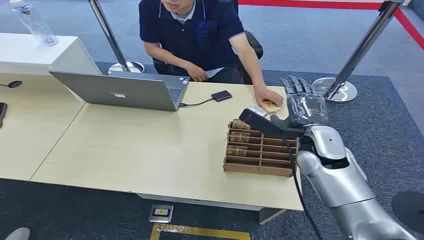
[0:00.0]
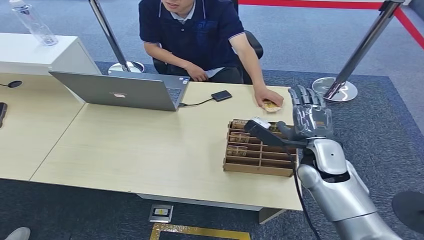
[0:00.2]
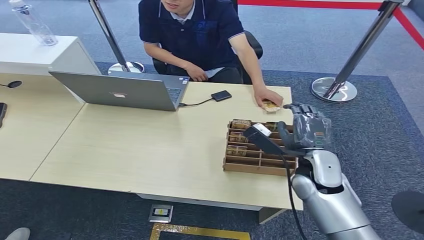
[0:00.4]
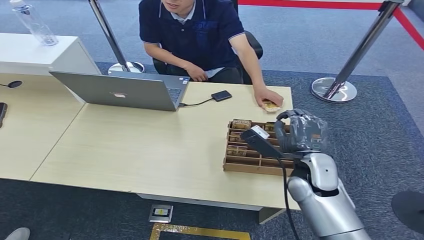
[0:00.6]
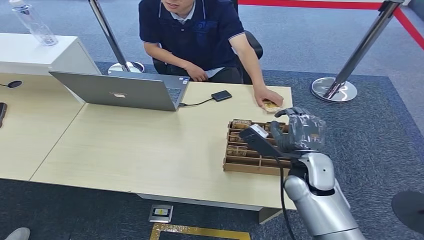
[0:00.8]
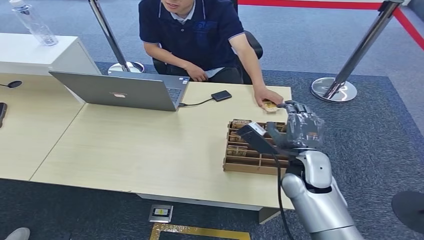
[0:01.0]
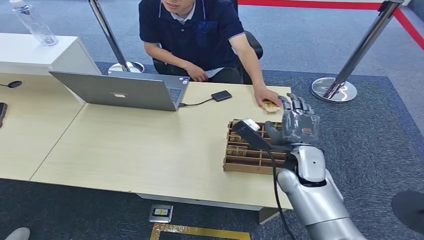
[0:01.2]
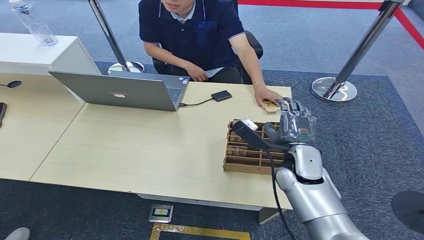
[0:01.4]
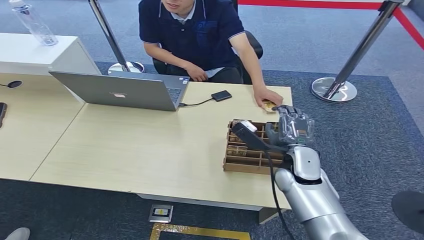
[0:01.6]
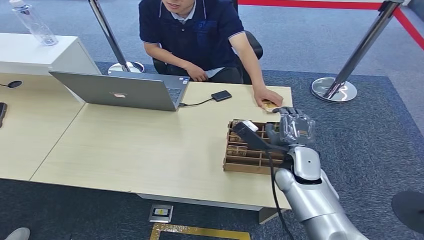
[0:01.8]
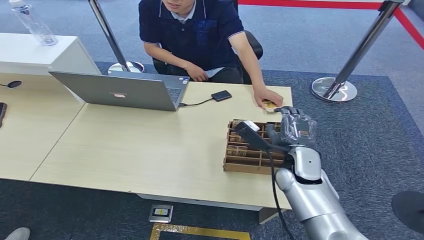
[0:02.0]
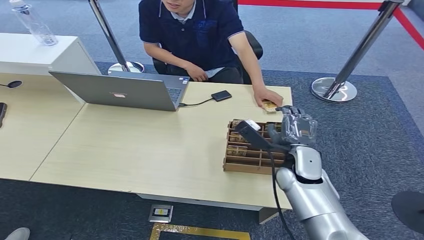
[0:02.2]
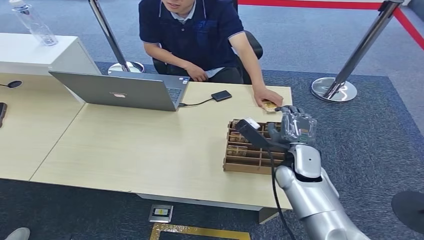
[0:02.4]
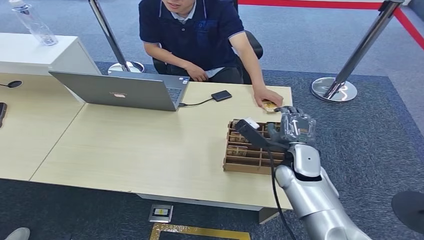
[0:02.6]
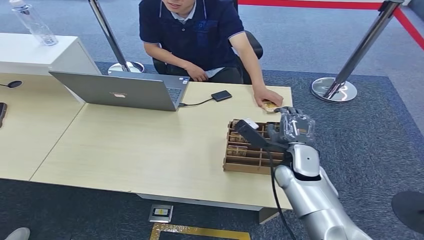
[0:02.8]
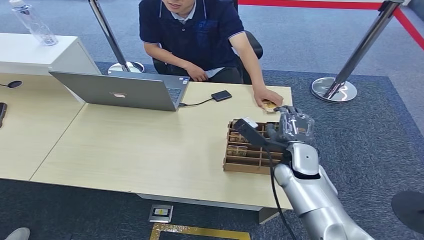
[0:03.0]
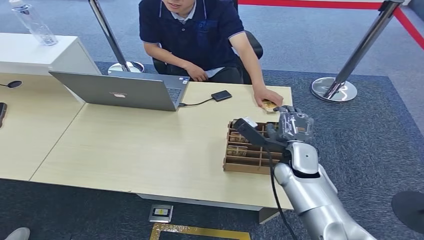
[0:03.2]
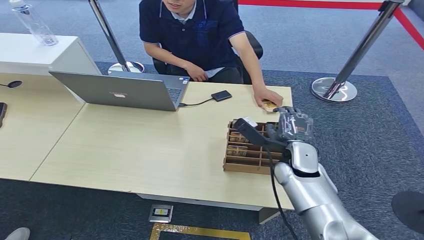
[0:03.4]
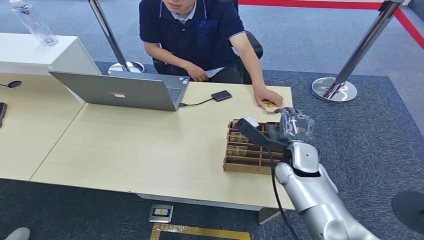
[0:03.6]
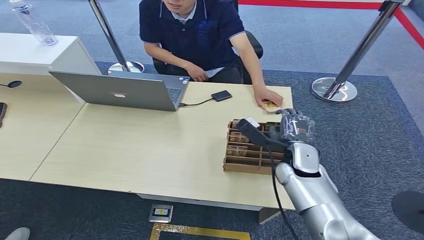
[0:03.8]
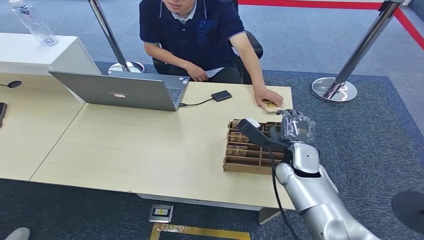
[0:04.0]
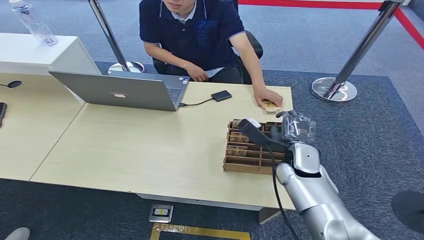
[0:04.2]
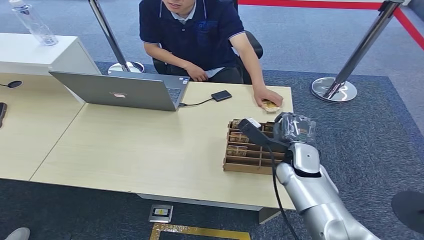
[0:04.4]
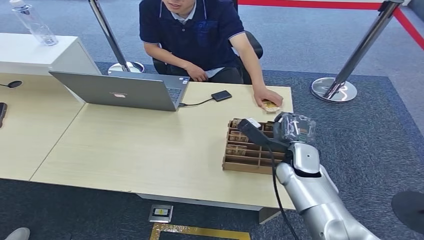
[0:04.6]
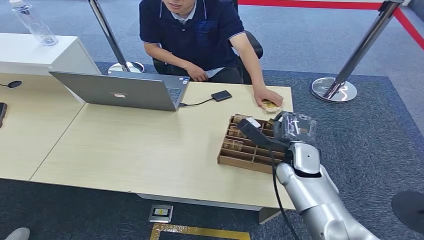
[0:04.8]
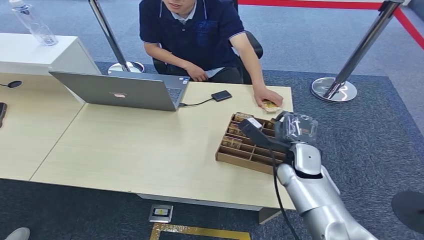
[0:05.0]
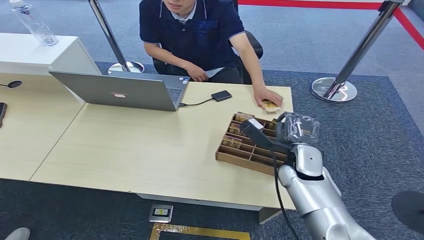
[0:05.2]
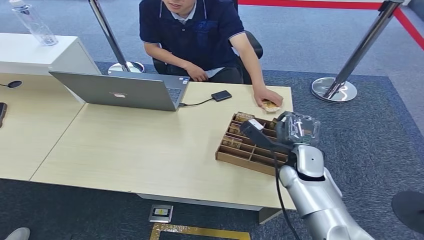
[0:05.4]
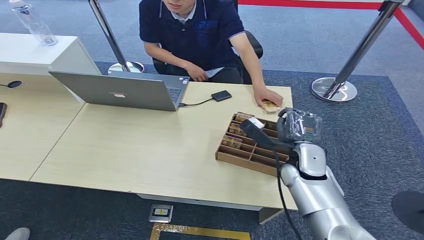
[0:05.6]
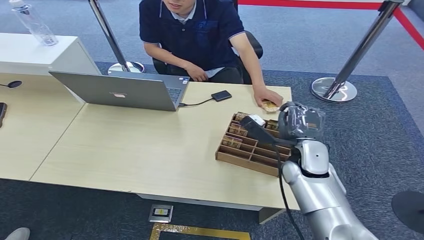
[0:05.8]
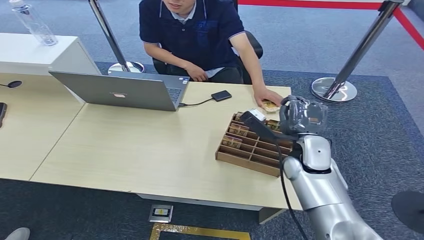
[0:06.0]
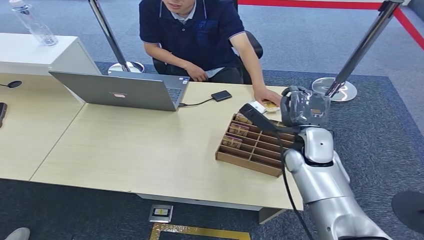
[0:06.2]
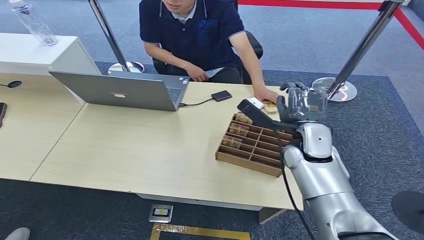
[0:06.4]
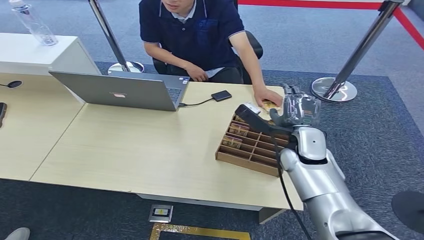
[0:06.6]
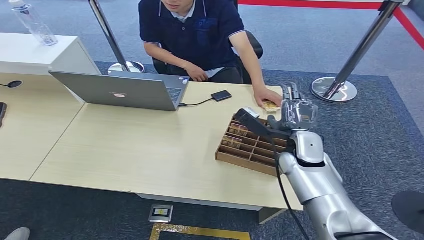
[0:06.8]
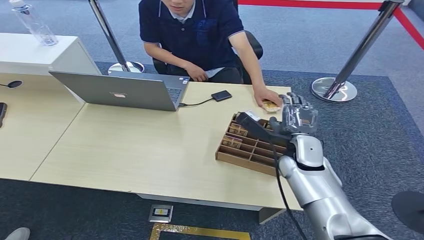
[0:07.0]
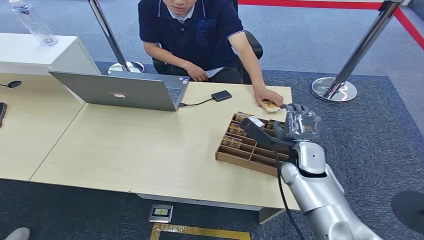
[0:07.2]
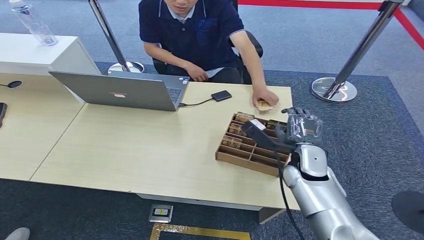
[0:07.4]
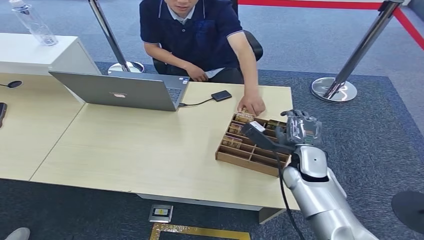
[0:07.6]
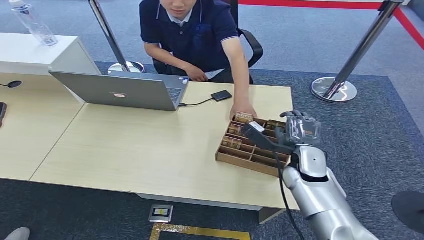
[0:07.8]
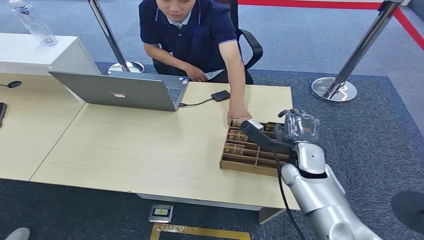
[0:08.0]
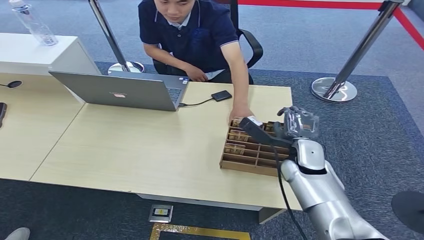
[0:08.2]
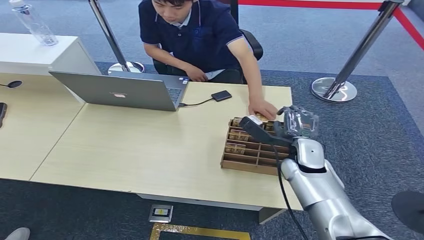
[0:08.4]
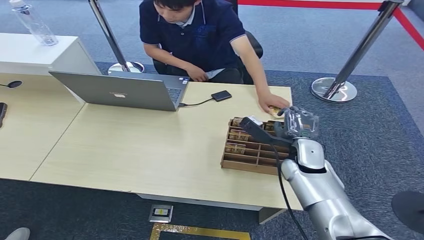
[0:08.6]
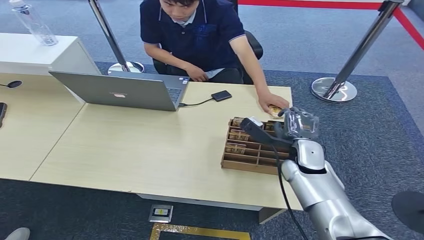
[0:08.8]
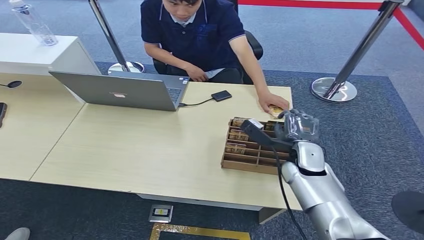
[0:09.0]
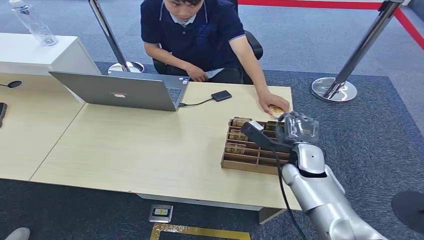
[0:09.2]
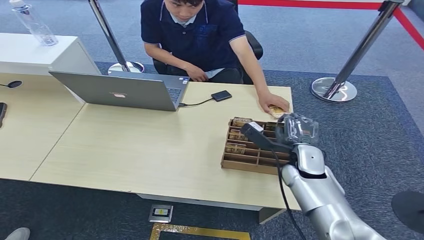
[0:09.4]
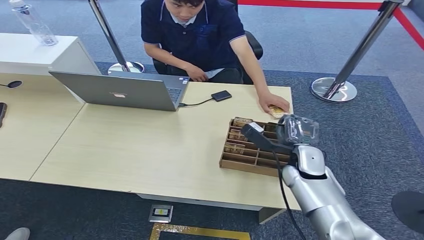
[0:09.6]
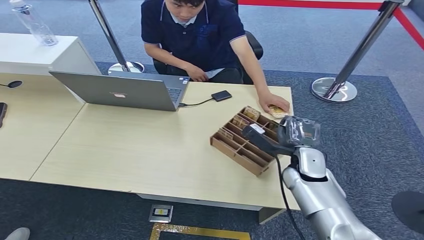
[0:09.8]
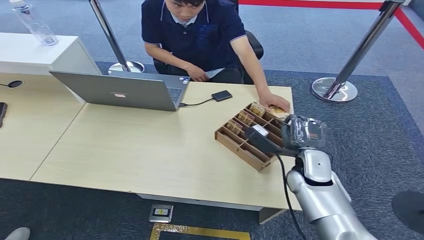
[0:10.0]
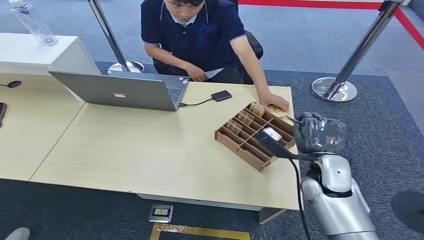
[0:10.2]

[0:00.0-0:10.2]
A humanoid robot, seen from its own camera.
Step, 0:00.0 to 0:10.2: Pick up the room card from the card holder.
0:01.4 to 0:05.8: There are only small adjustments of the hands.
0:05.8 to 0:10.2: There are only small adjustments of the hands.

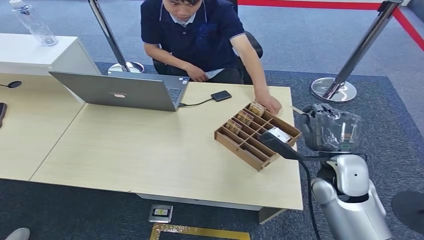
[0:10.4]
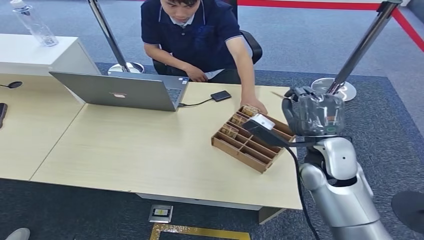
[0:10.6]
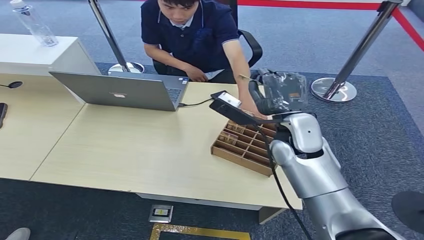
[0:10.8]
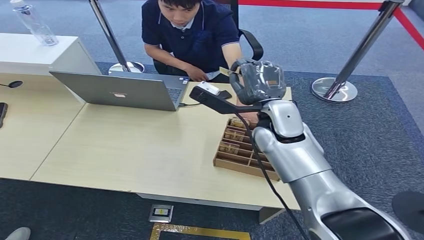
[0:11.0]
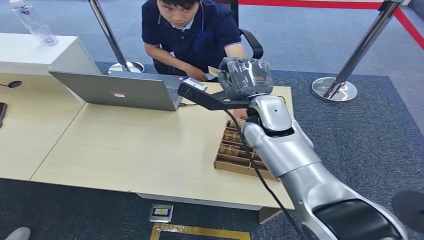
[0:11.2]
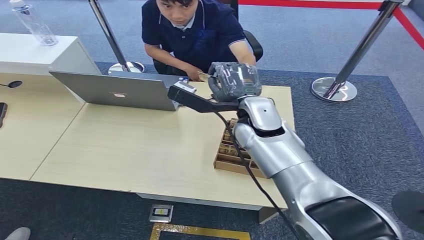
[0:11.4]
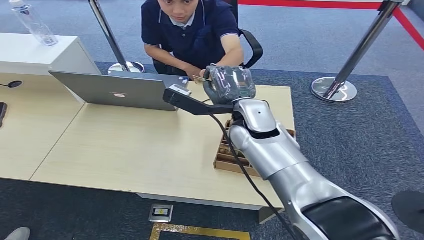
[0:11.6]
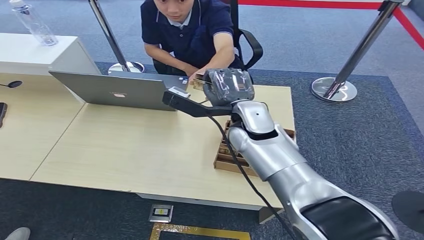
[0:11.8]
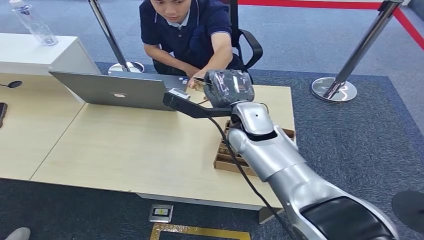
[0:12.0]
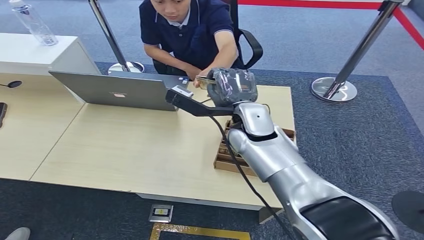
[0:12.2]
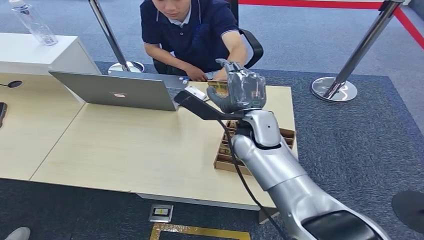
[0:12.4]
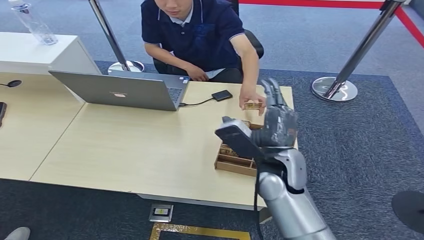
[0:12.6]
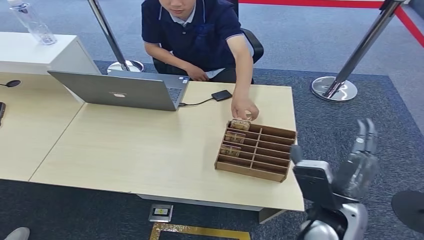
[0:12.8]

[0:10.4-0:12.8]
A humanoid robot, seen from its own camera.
Step, 0:10.4 to 0:12.8: Hand the room card to the target.
0:10.4 to 0:11.6: The right hand heads to the left, forward and upward, covering approximately 20 cm.
0:11.6 to 0:12.8: The right hand goes some 20 cm backward, to the right and downward.
